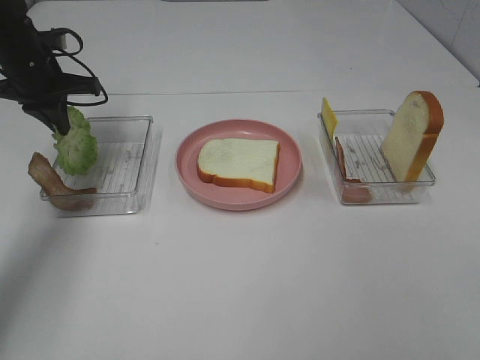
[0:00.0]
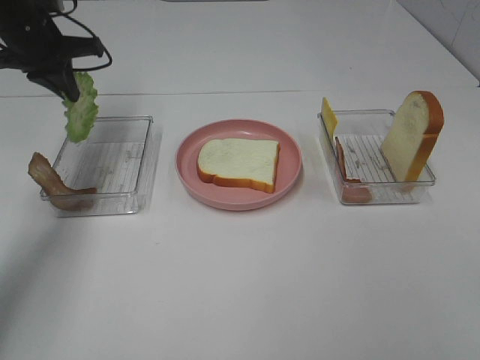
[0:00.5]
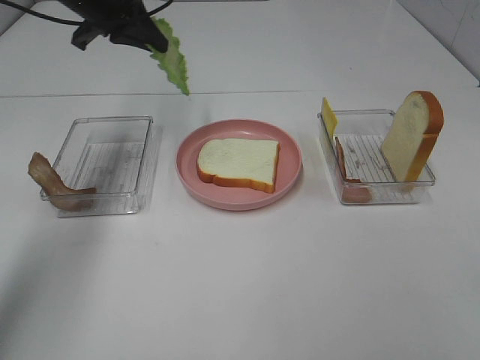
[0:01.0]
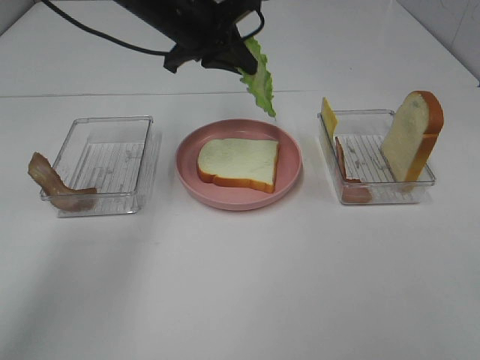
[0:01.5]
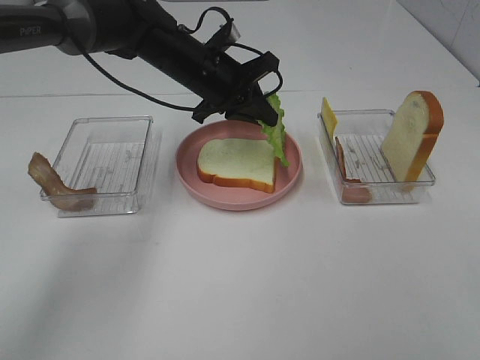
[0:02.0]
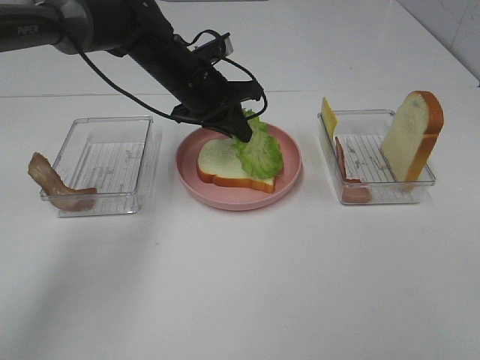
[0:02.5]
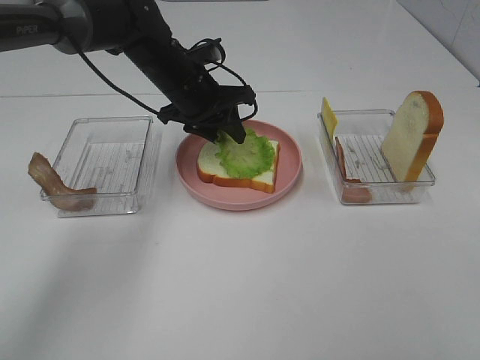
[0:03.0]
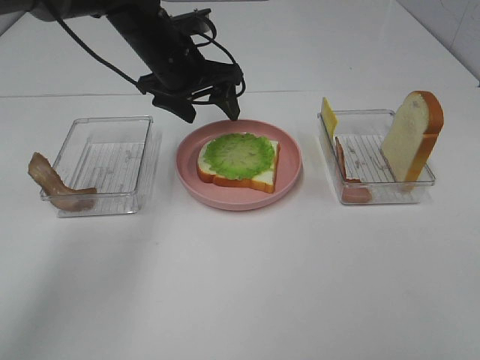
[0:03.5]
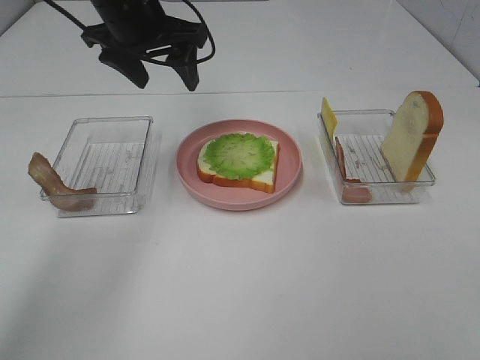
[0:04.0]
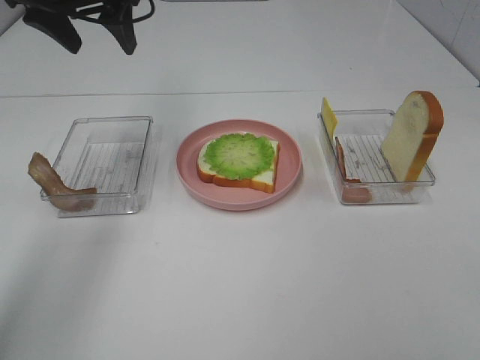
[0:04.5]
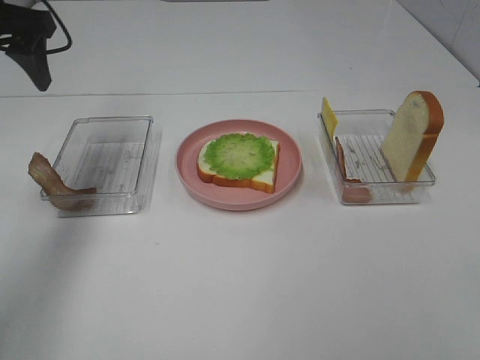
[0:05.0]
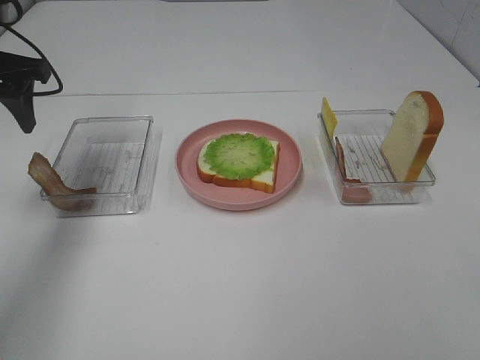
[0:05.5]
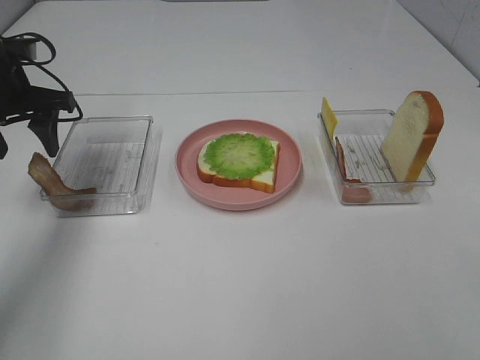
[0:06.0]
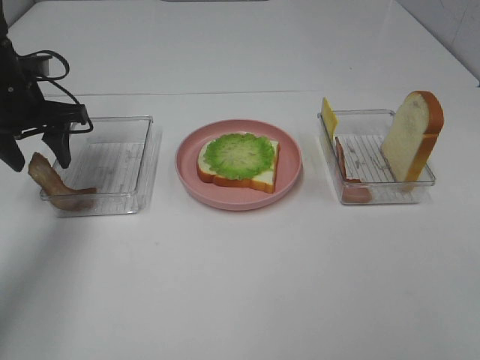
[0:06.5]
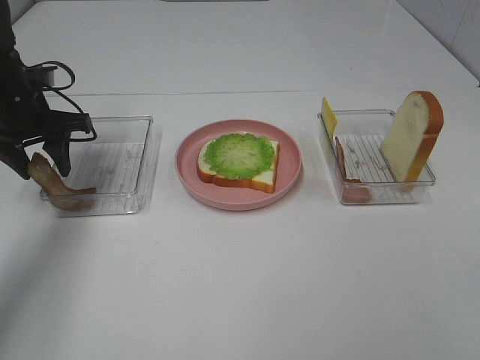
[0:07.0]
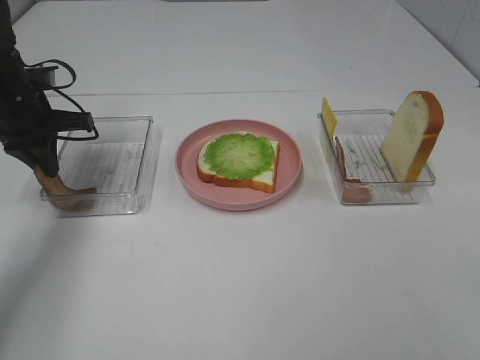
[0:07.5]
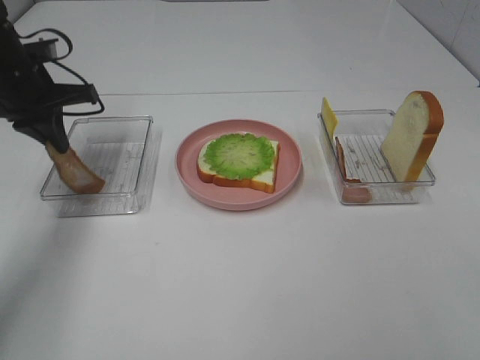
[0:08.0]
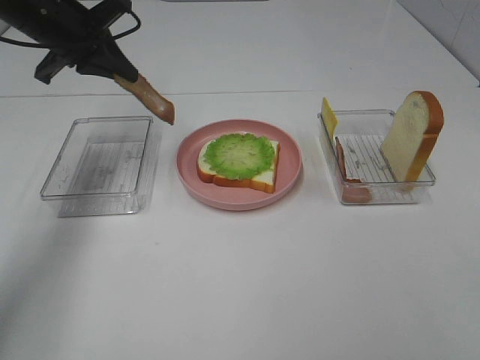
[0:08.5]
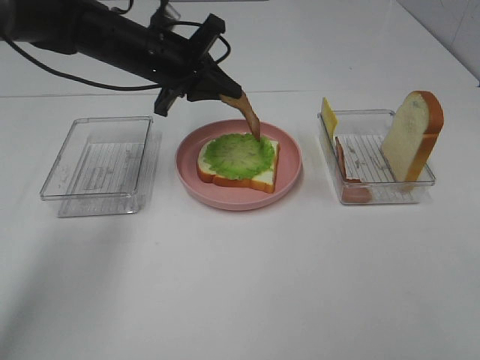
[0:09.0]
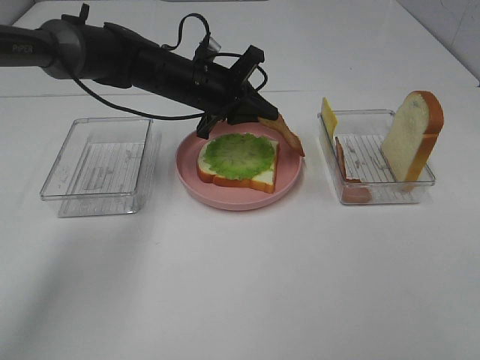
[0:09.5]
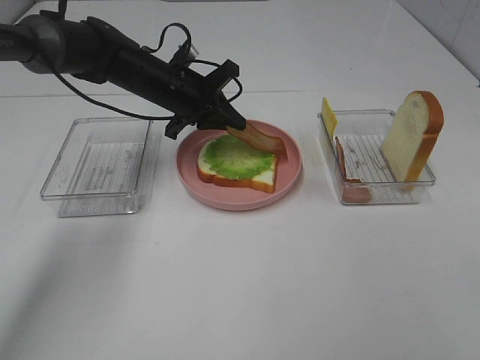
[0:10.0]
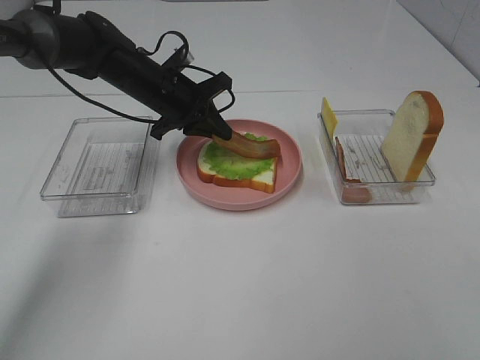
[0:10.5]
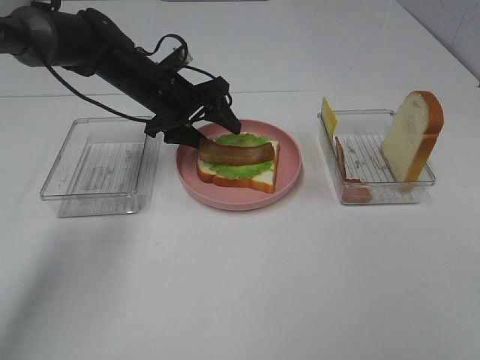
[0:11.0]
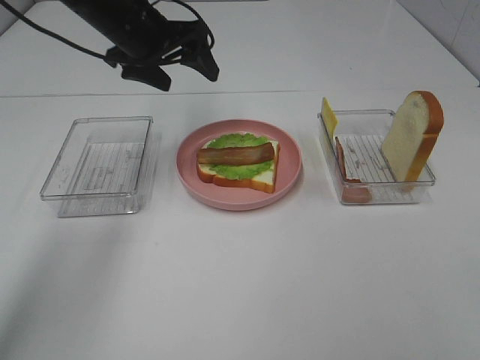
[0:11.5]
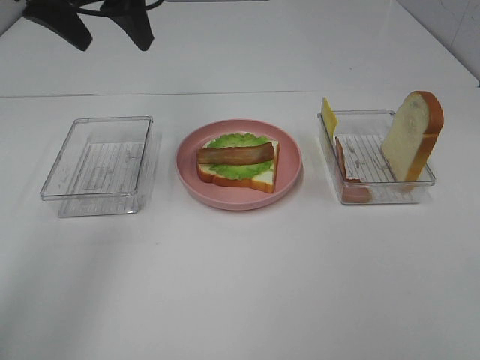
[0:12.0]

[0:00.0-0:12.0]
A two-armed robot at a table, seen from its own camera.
Task of the whole recording: Make sandwiches.
Step, 0.5 to 3.5 s: Left hand:place the lettuce slice on the bread slice.
Step, 4.0 to 7.5 s: Left hand:grab the bacon.
Step, 8.0 to 11.0 s: Left hand:place bacon on lettuce slice.
0.0 to 2.0 s: The left gripper shifts some 25 cm to the right.
2.0 to 4.0 s: The left gripper heads upward and to the left, covering some 15 cm, and opens up.
4.0 to 6.0 s: The left gripper travels to the left and downward by roughly 15 cm.
6.0 to 8.0 s: The left gripper closes up.
8.0 to 10.0 s: The left gripper moves to the right and downward, roughly 15 cm.
10.0 to 12.0 s: The left gripper heads upward, covering roughly 20 cm, and opens.

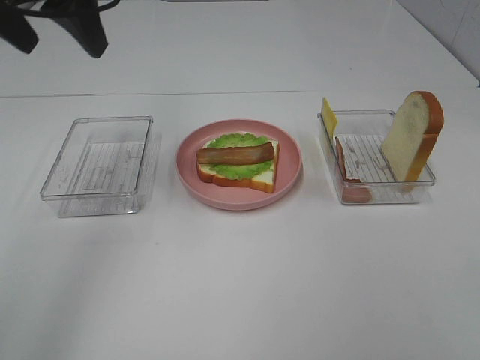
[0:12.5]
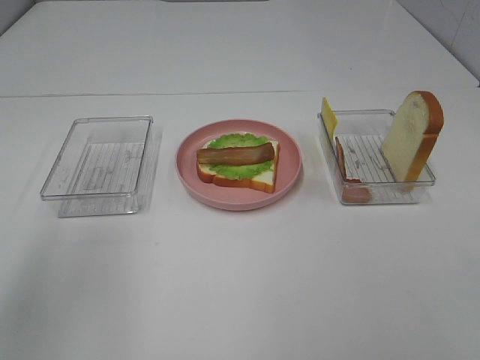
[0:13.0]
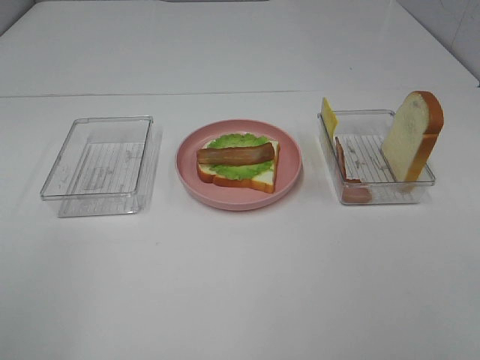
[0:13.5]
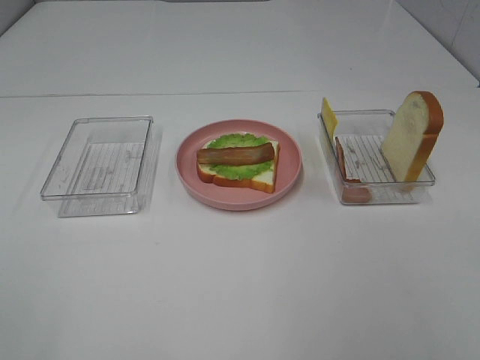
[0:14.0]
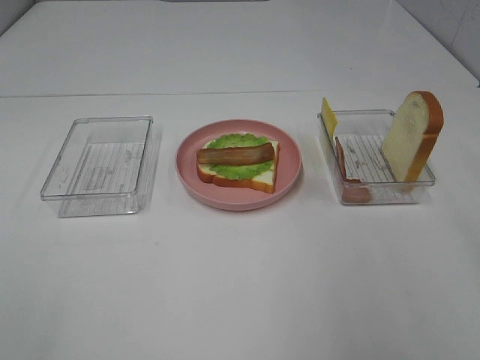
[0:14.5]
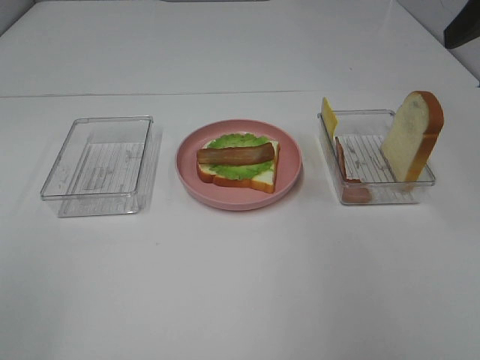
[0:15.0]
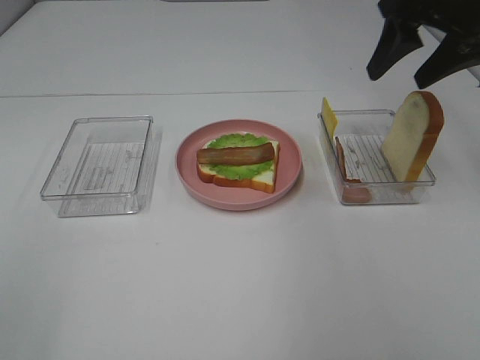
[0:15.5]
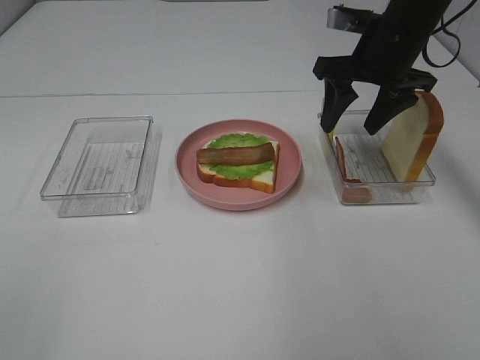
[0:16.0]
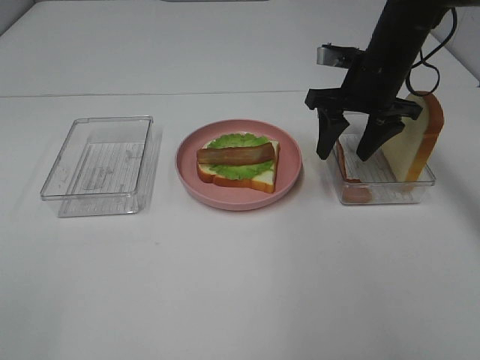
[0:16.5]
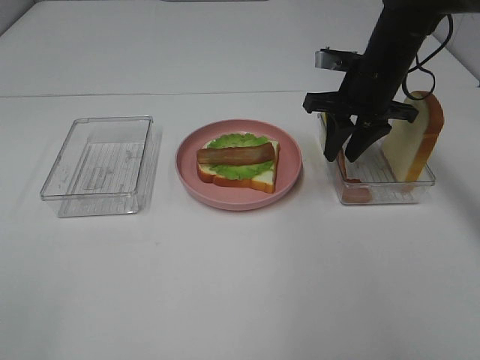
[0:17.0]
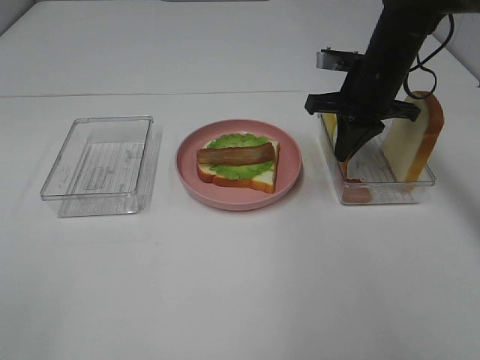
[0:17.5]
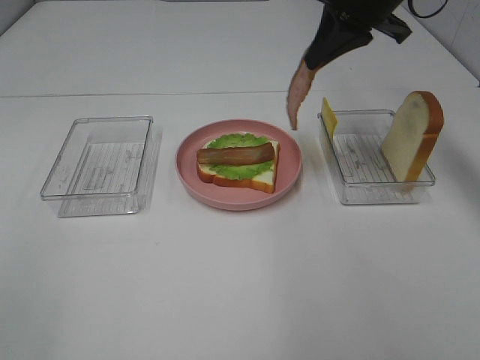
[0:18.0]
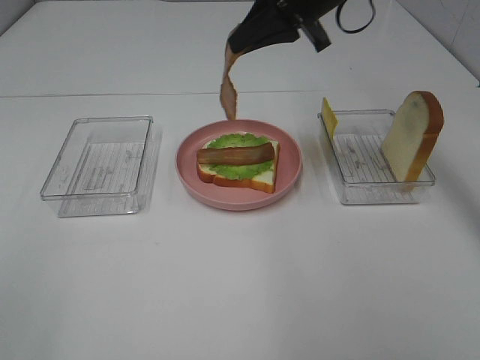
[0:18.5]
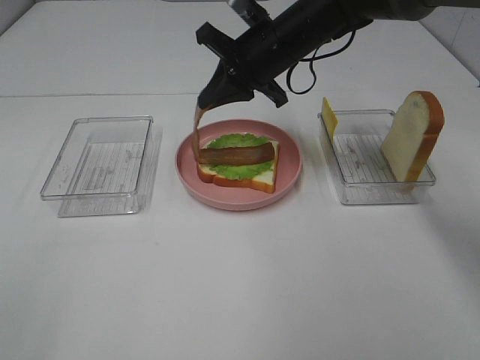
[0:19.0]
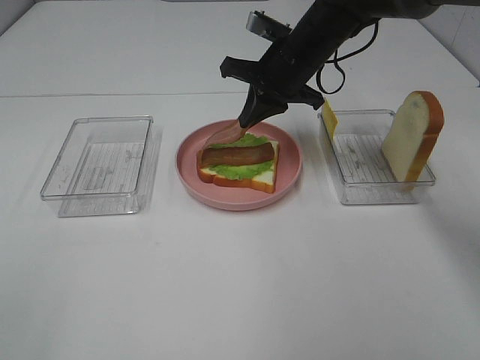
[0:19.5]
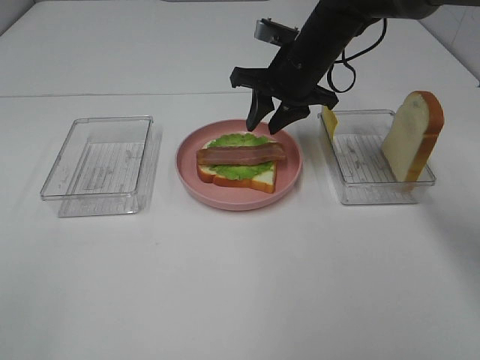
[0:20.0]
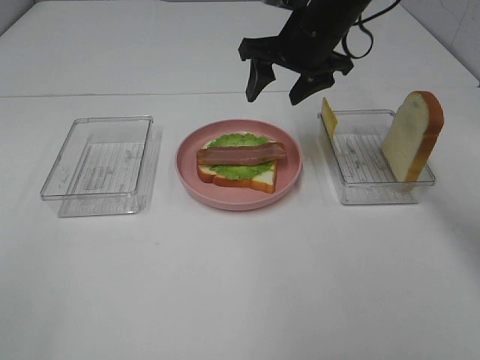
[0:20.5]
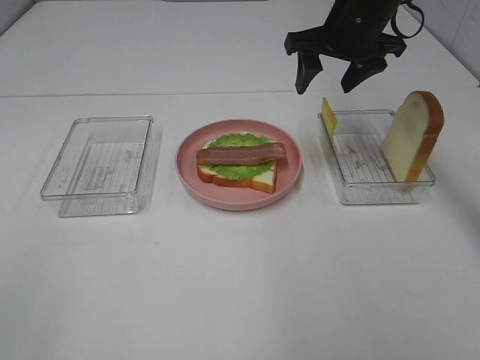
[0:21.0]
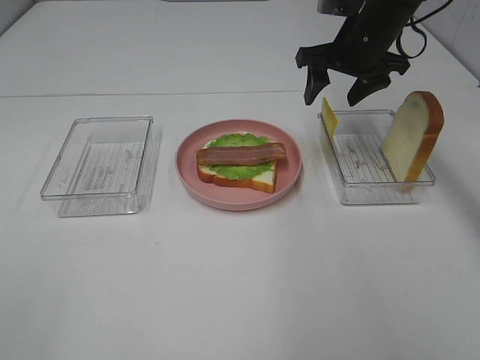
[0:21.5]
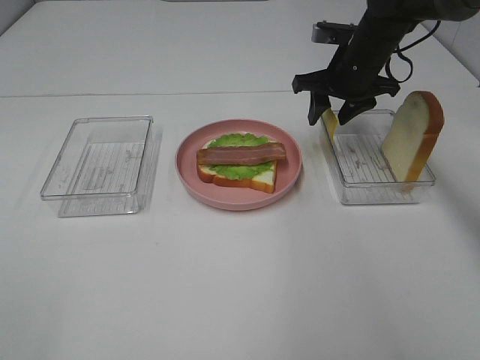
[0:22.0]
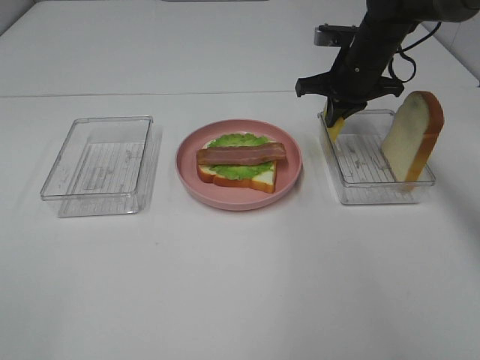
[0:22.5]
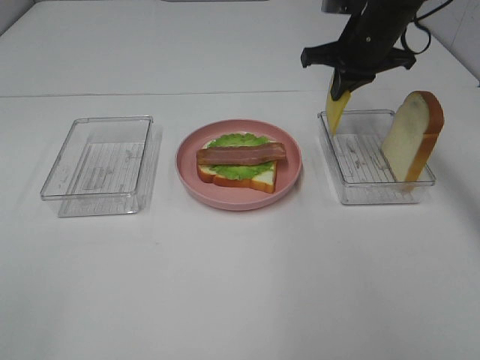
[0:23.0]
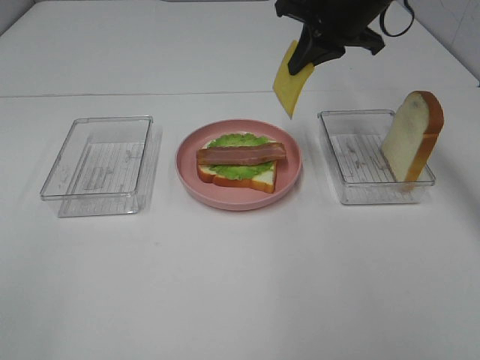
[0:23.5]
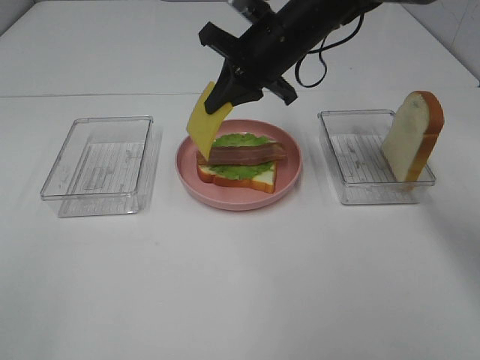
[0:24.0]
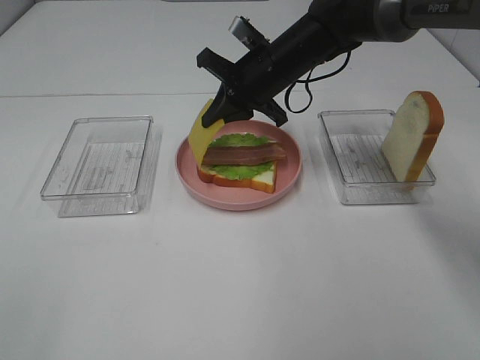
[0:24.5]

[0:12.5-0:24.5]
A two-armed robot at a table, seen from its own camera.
Task of the whole recording: Make sandwiches.
Step, 12.5 to 17.0 s: Right hand:grab the bacon.
Step, 17.5 to 20.0 s: Right hand:place bacon on bacon.
Step, 20.5 to 22.5 s: Right hand:grab the cheese slice.
12.5 to 14.5 s: The left gripper moves backward, roughly 35 cm.
14.5 to 16.5 s: The right gripper is displaced forward and downward by approximately 30 cm.
16.5 to 18.5 s: The right gripper moves upward and to the left, some 15 cm, and closes its fingers.
18.5 to 20.5 s: The right gripper goes roughly 5 cm downward, and opens its fingers.
20.5 to 22.5 s: The right gripper heads to the right and downward, covering approximately 10 cm, and closes its fingers.
22.5 to 24.5 s: The right gripper is displaced to the left by roughly 10 cm.

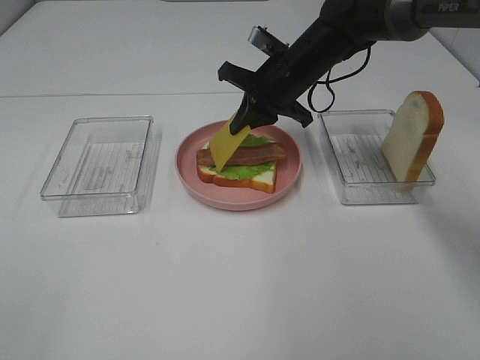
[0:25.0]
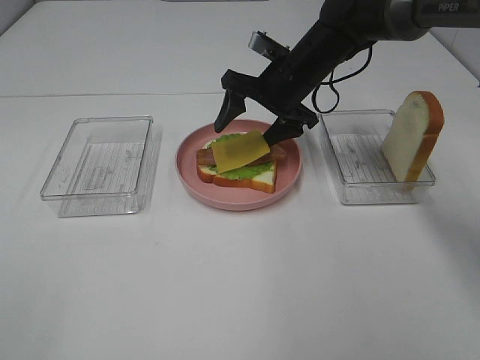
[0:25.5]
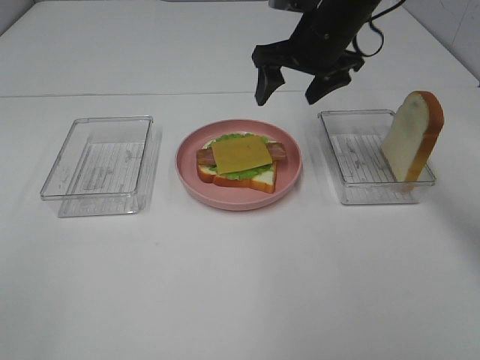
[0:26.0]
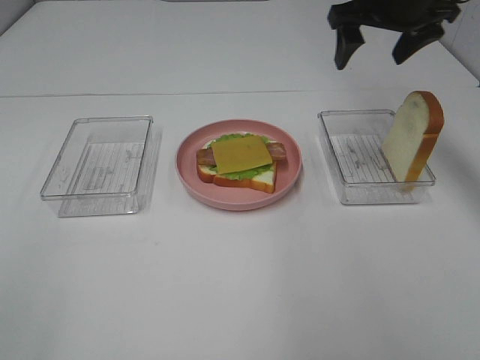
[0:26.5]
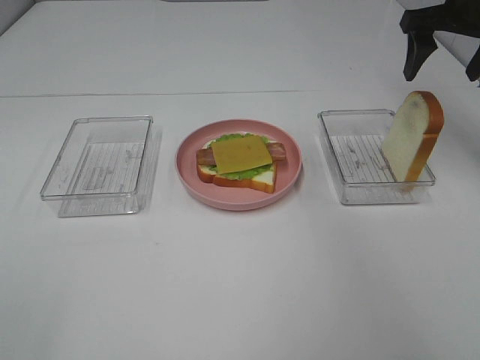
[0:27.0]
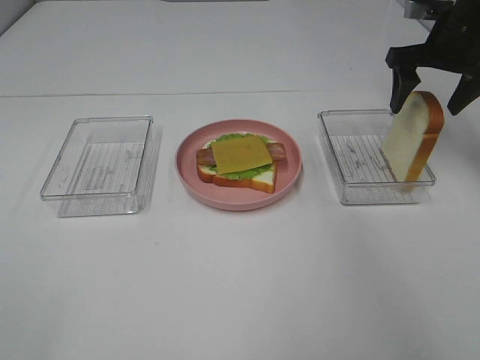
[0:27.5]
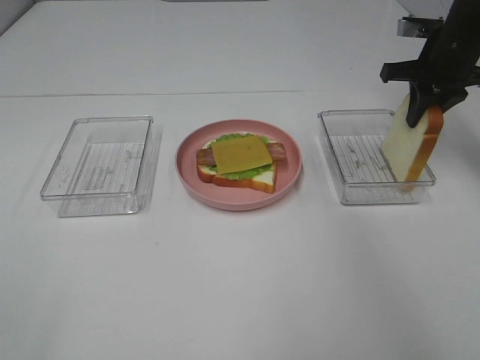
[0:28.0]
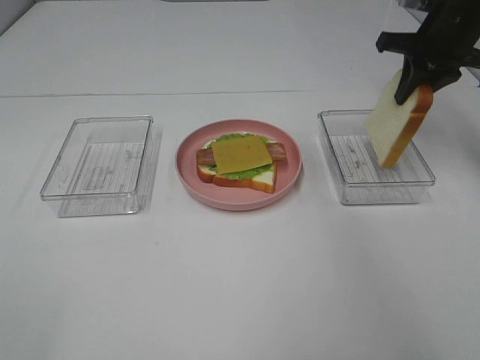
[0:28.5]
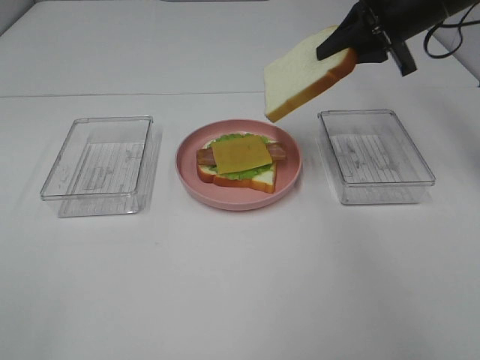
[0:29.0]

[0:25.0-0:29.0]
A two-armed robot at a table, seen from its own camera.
Task of the whole recording: Make sandwiches.
Step, 26.5 to 28.0 s: Right hand:grab the bread slice.
25.0 to 27.0 s: The right gripper shifts roughly 25 cm to the right and upward, and opens.
27.0 to 29.0 s: The right gripper goes approximately 5 cm to the left, and closes.
